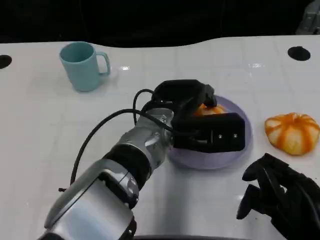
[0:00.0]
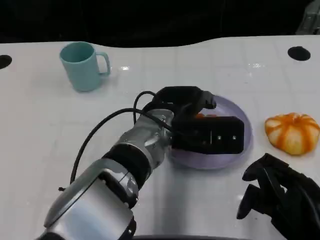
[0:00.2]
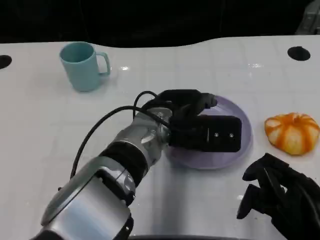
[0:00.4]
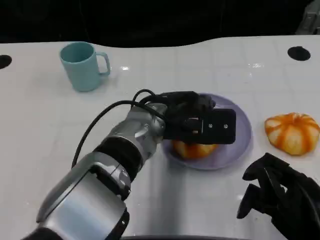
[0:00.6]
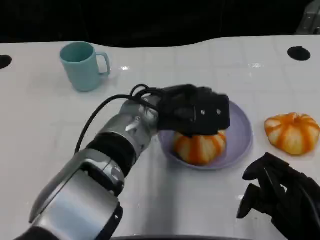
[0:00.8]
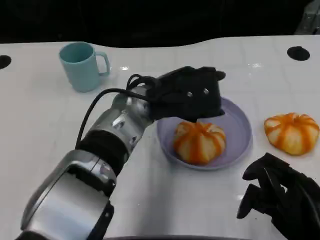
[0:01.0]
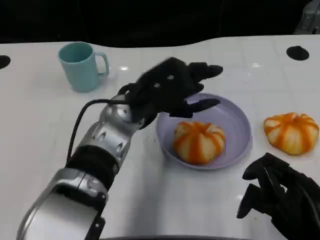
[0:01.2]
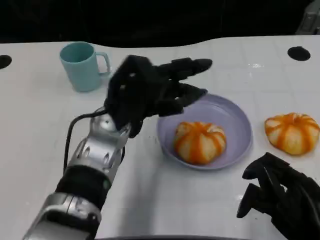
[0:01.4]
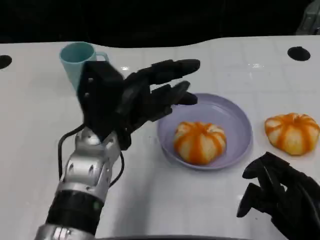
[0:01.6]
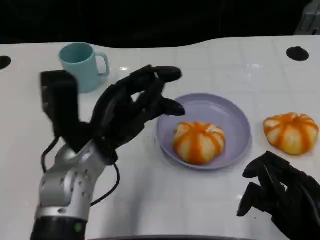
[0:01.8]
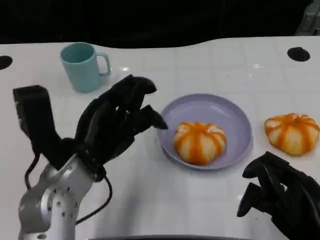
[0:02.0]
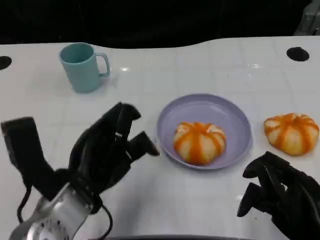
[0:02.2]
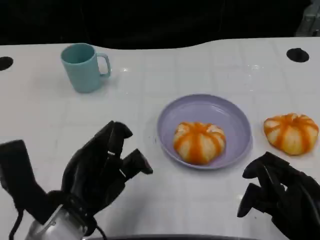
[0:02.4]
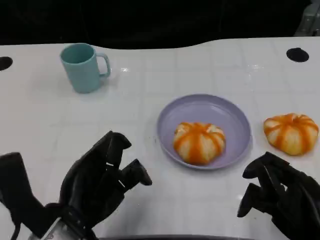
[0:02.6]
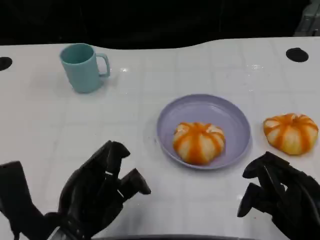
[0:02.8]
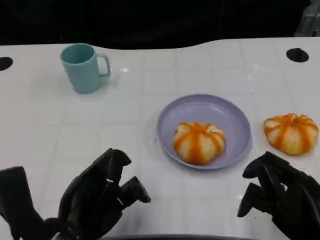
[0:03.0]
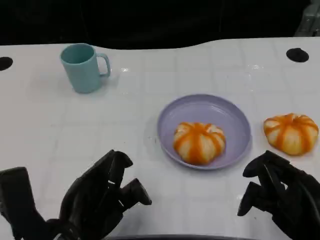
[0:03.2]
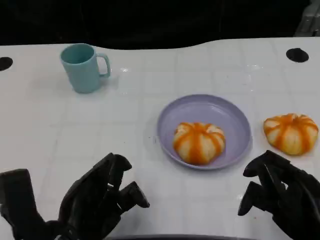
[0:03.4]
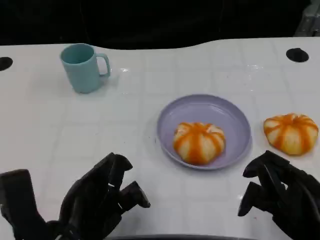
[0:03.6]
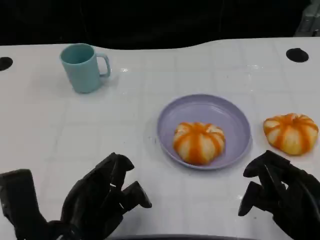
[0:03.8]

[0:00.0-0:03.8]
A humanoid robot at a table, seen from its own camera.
Task of the whole recording: Grasp the bread from the table and place it into the plate.
0:00.0 to 0:01.2: The left hand is displaced to the left by approximately 5 cm.
0:01.2 to 0:02.6: The left hand goes about 15 cm backward and to the left.
0:02.6 to 0:03.8: The hands stay close to where they were, moving slightly.

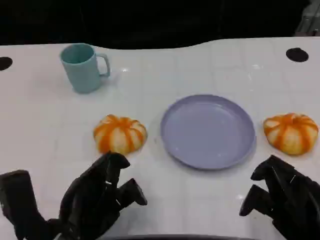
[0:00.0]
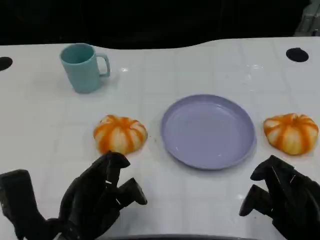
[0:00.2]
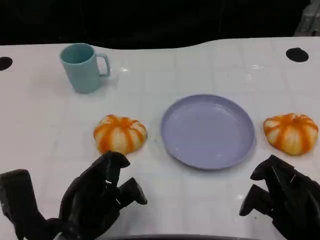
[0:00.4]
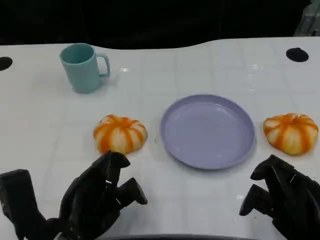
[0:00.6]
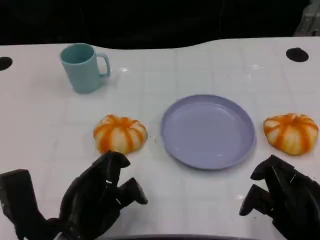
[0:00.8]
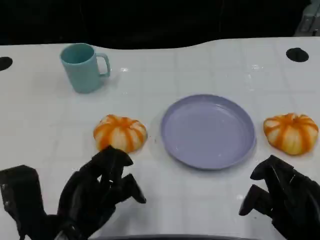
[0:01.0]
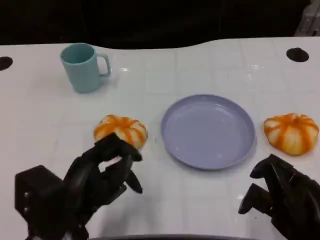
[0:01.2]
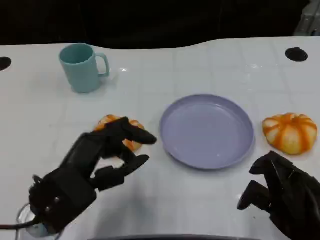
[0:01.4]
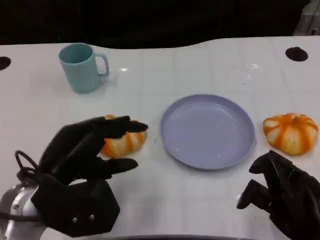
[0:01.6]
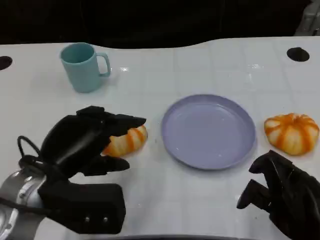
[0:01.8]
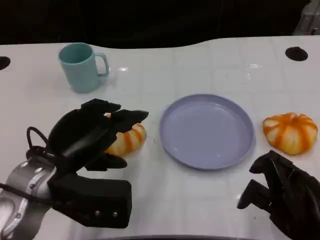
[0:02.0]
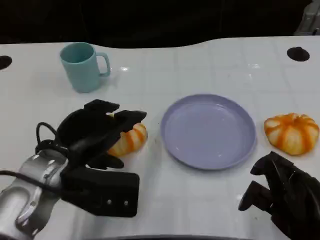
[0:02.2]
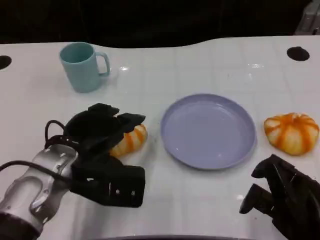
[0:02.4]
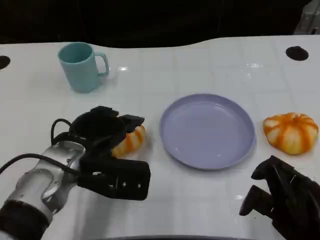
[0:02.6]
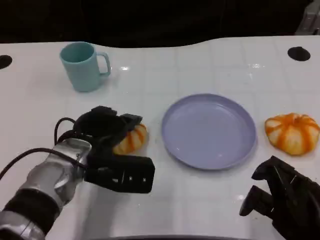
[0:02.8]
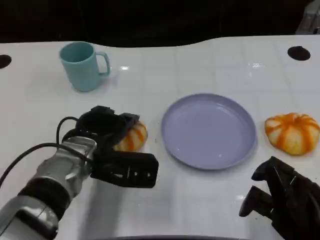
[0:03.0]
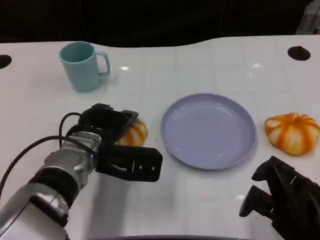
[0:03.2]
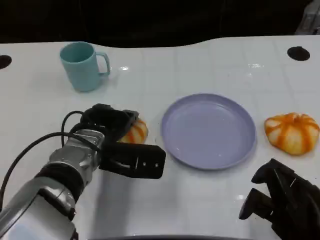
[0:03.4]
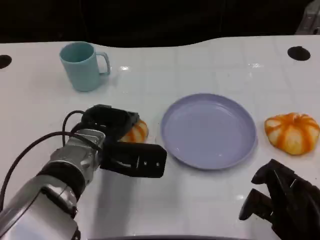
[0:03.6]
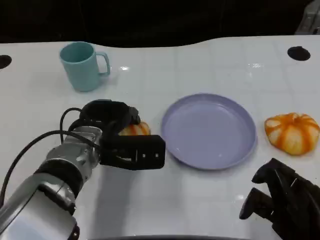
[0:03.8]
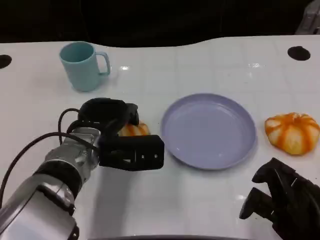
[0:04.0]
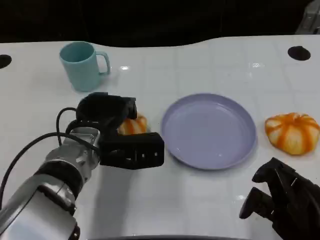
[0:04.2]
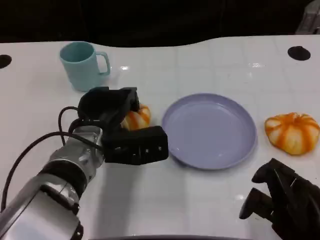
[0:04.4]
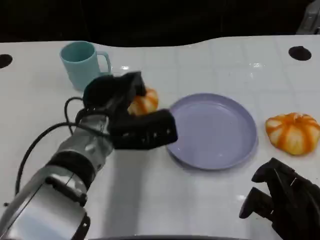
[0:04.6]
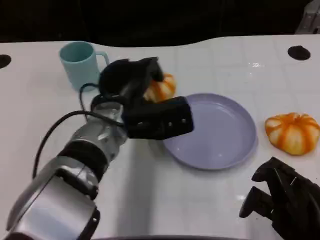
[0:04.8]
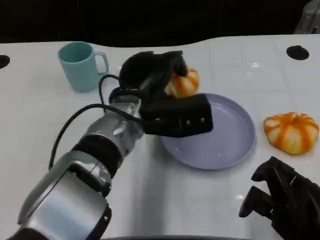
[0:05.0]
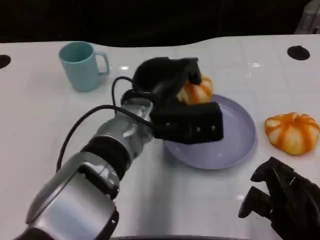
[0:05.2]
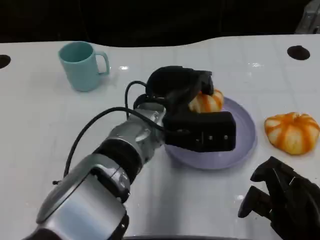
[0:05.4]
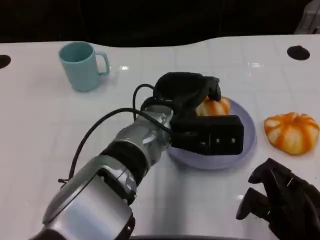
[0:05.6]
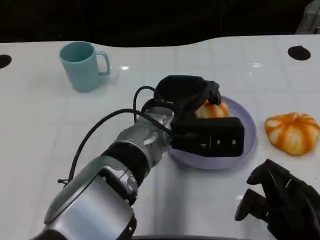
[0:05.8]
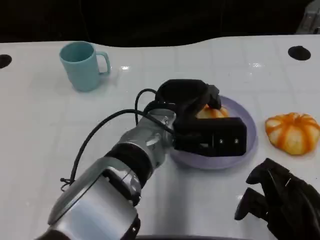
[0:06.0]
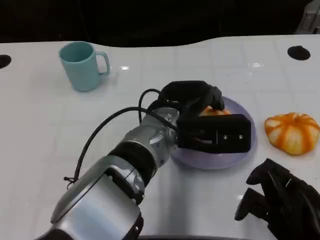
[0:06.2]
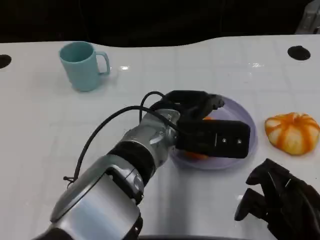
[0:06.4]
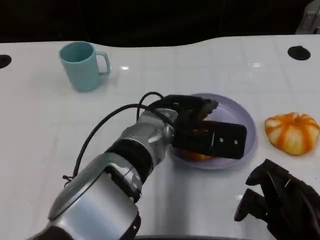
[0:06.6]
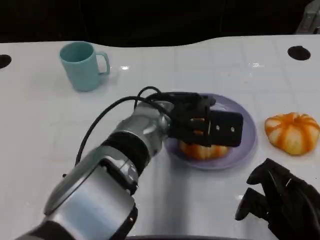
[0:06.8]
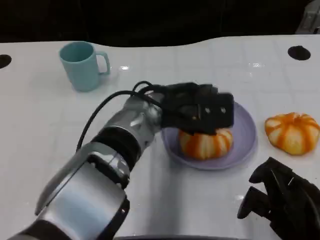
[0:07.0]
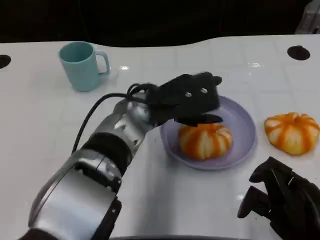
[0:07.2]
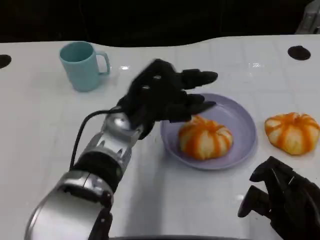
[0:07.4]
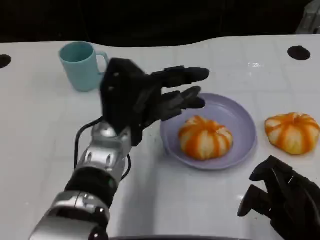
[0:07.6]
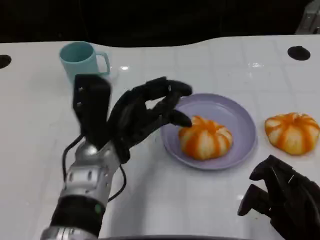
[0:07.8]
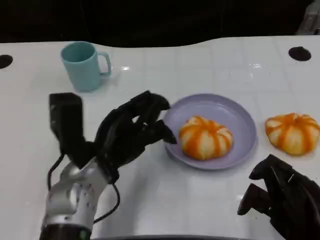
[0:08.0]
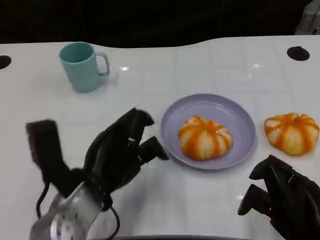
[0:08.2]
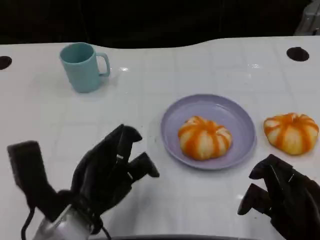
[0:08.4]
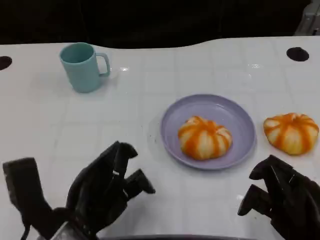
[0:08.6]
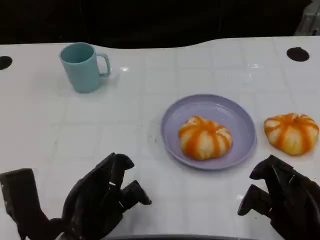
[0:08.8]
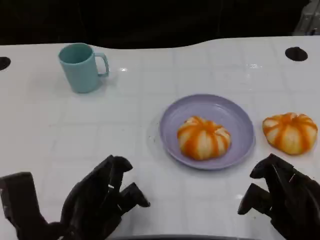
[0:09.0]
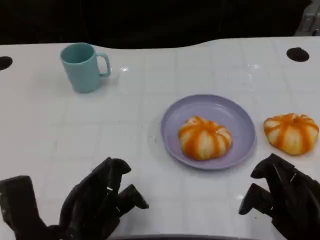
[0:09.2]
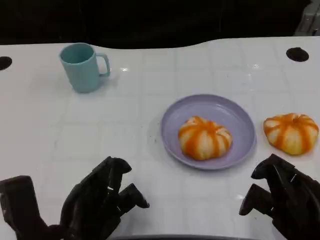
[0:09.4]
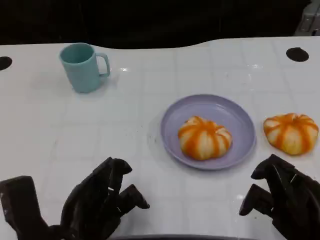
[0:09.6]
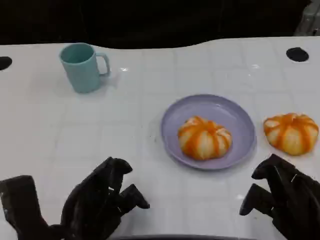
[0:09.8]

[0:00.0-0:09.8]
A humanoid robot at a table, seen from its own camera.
Task of the whole recording: Grasp the bread from the table and place it into the plate.
0:00.0 to 0:01.4: The left hand shifts by about 5 cm.
0:01.4 to 0:02.8: The left hand heads forward, covering approximately 10 cm.
0:02.8 to 0:04.2: The hands make only small movements.
0:04.2 to 0:05.6: The left hand goes roughly 10 cm to the right.
0:07.0 to 0:08.4: The left hand moves backward, to the left and downward, some 20 cm.
0:08.4 to 0:09.8: The hands stay close to where they were, moving slightly.

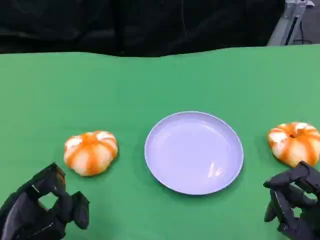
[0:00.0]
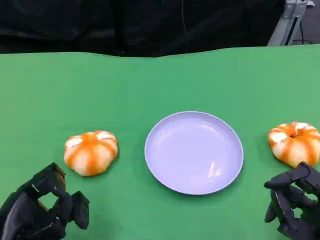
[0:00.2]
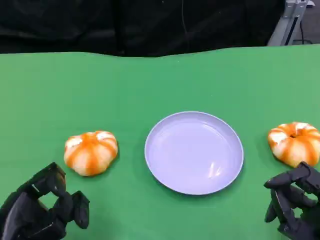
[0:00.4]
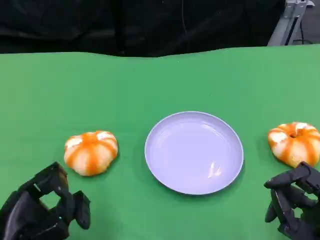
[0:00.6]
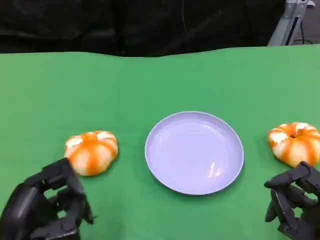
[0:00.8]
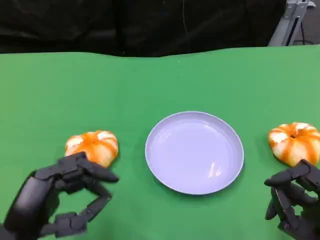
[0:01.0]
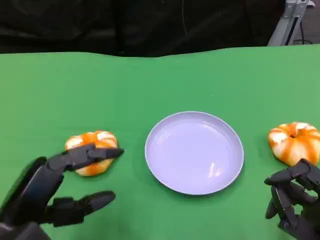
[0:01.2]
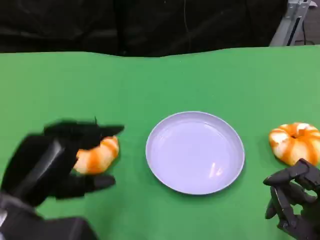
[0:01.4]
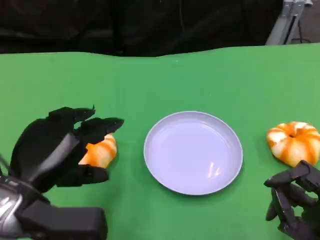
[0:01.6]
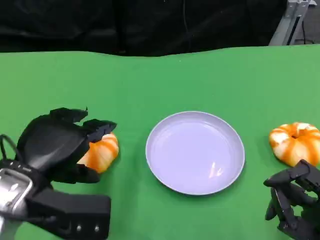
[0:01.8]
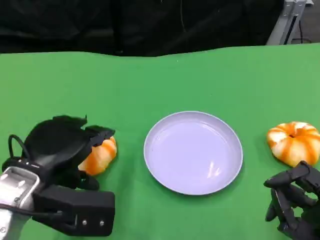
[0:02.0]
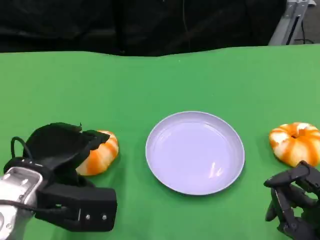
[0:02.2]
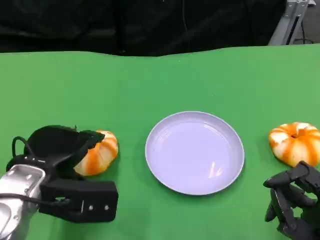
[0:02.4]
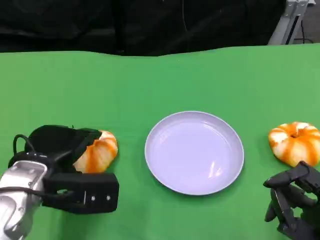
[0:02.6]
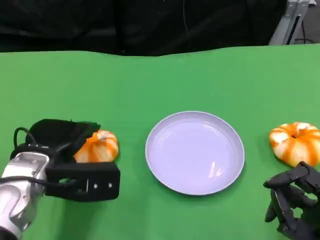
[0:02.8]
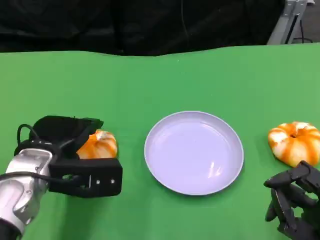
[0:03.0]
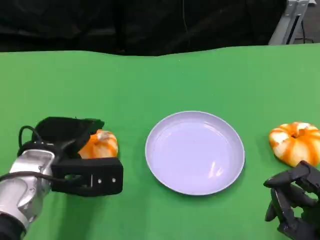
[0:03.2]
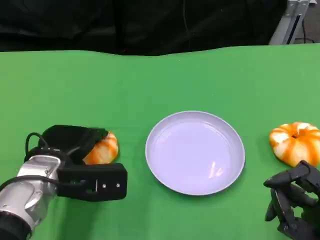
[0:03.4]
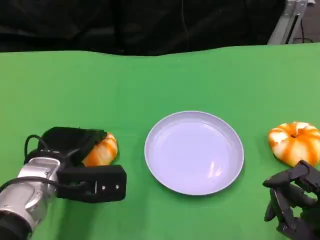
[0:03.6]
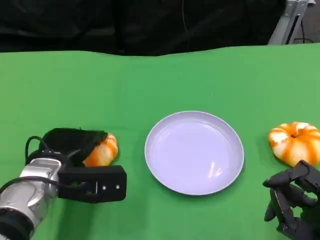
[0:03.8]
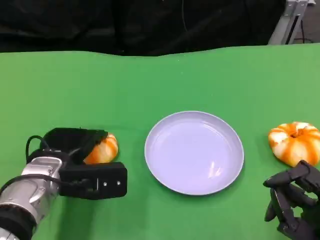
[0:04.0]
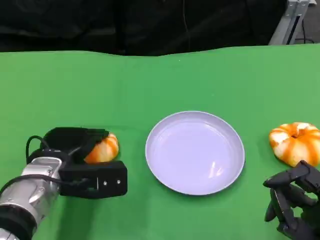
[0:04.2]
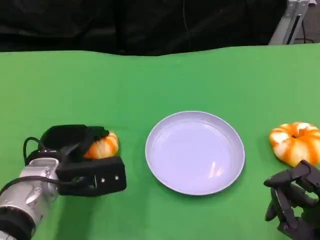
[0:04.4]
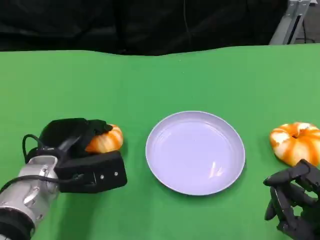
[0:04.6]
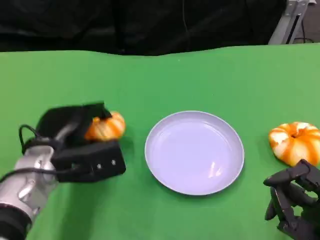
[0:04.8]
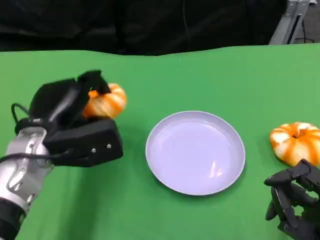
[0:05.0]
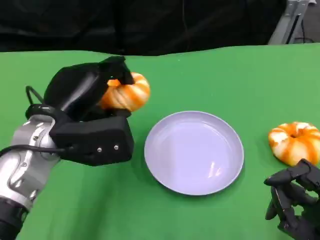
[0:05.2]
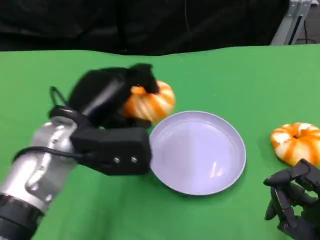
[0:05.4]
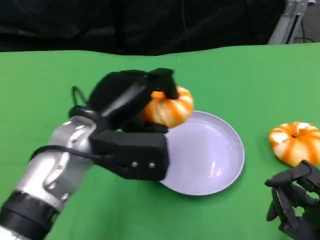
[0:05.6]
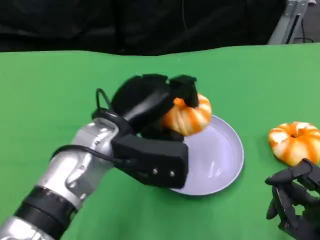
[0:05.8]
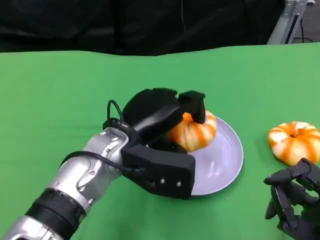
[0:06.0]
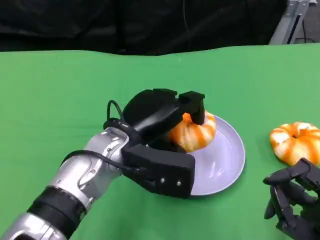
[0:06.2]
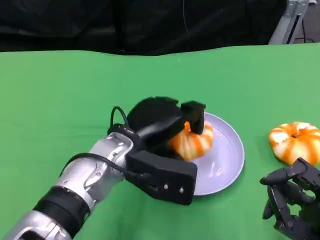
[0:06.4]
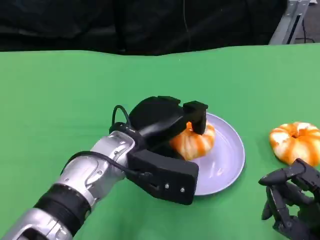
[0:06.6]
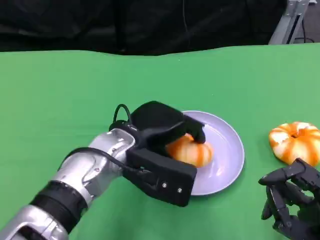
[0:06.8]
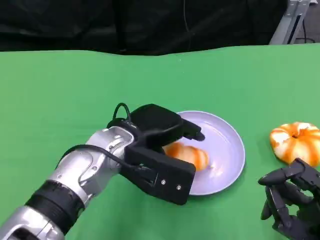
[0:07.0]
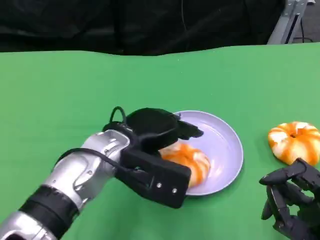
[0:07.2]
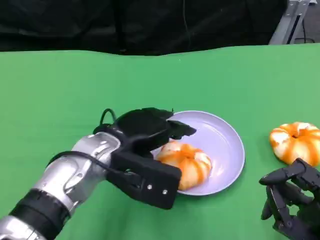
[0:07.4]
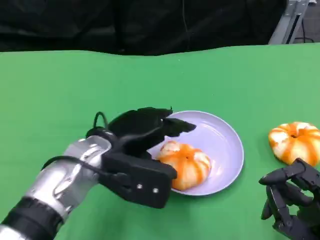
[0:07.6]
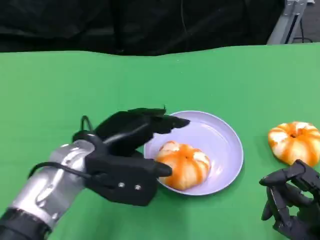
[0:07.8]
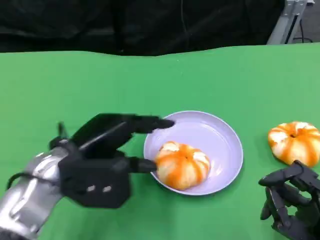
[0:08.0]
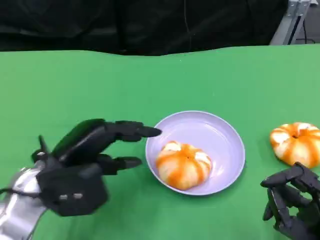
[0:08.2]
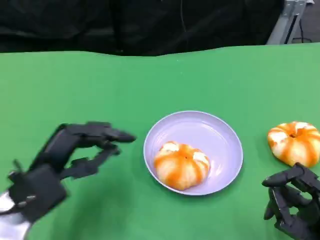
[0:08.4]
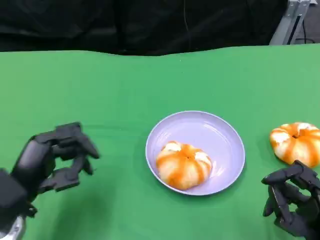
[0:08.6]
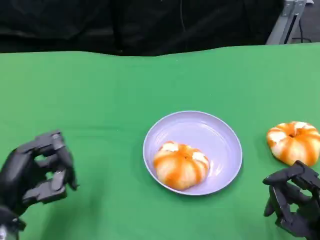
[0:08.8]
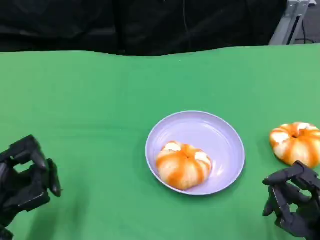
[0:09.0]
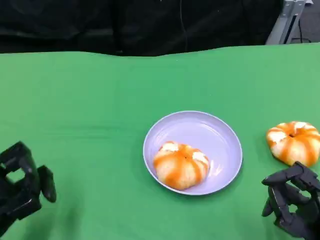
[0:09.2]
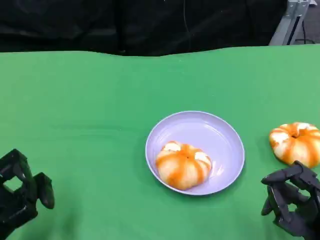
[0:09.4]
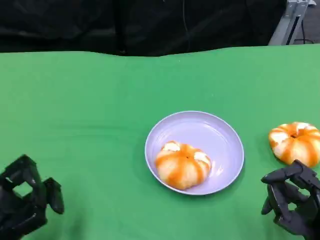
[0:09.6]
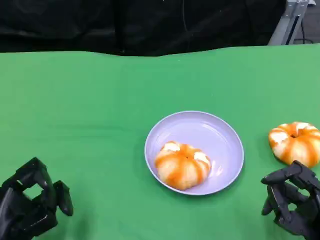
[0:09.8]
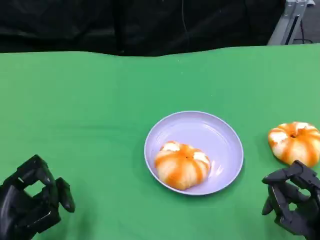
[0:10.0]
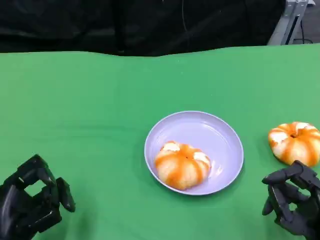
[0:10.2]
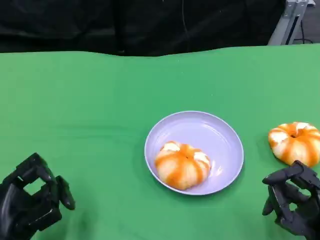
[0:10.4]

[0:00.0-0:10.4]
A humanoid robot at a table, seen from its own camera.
Task of the whole recording: Grasp the bread from the table and place it into the plate.
0:00.0 to 0:01.4: The left hand moves upward, approximately 5 cm.
0:01.4 to 0:03.0: The left hand heads forward, covering some 10 cm.
0:03.0 to 0:04.4: The hands stay close to where they were, moving slightly.
0:04.4 to 0:06.0: The left hand moves to the right and upward, approximately 10 cm.
0:07.4 to 0:09.0: The left hand shifts some 20 cm to the left, backward and downward.
0:09.0 to 0:10.4: The hands stay close to where they were, moving slightly.
